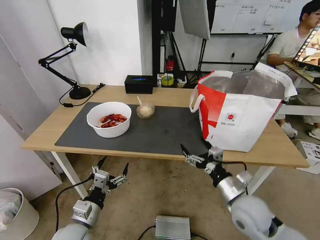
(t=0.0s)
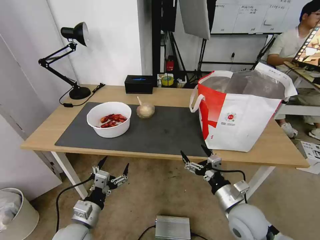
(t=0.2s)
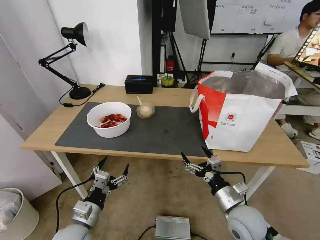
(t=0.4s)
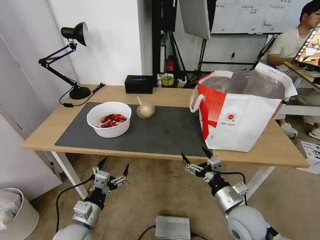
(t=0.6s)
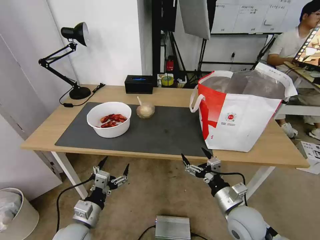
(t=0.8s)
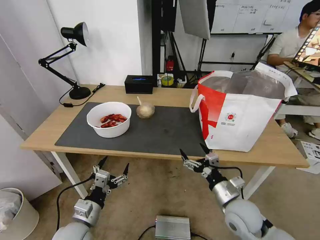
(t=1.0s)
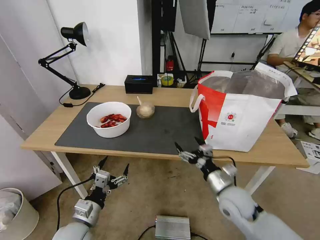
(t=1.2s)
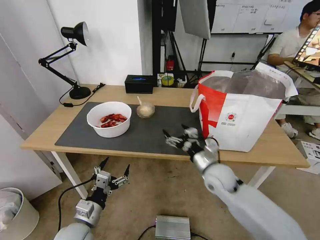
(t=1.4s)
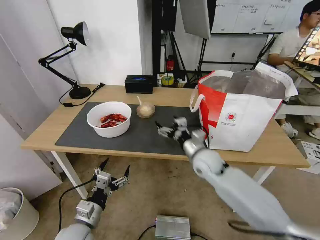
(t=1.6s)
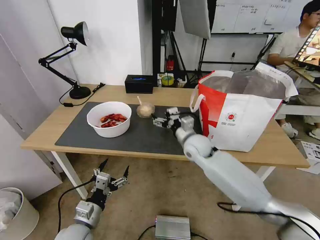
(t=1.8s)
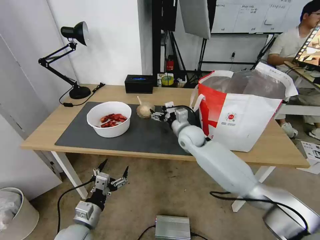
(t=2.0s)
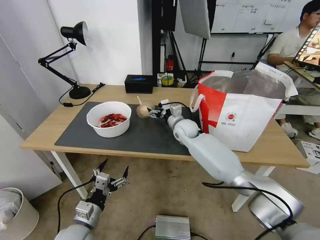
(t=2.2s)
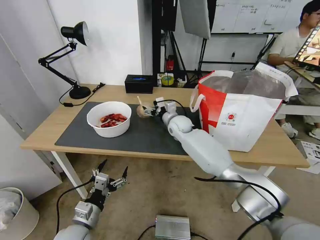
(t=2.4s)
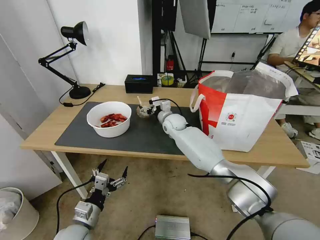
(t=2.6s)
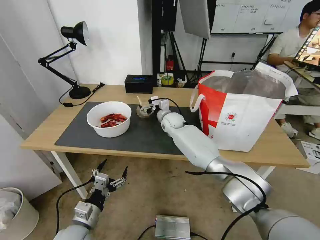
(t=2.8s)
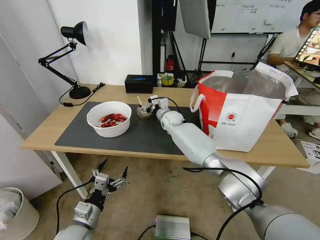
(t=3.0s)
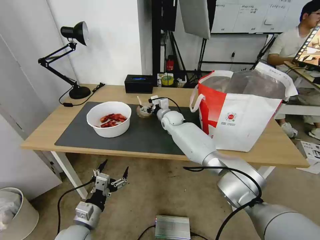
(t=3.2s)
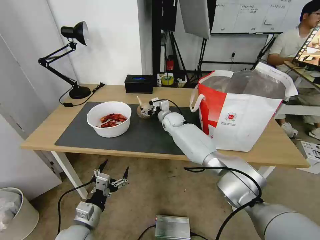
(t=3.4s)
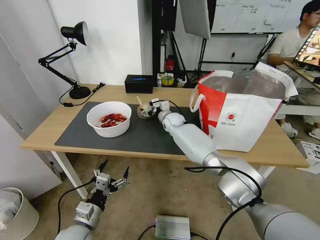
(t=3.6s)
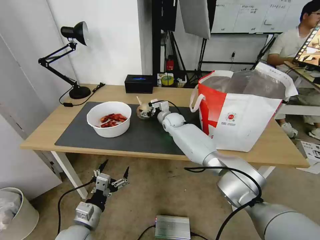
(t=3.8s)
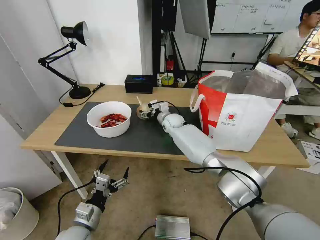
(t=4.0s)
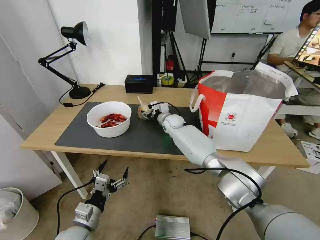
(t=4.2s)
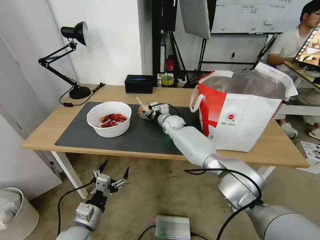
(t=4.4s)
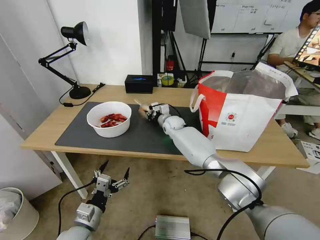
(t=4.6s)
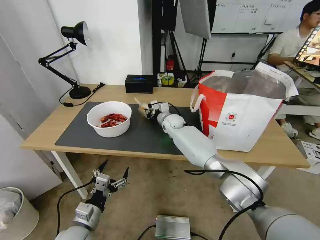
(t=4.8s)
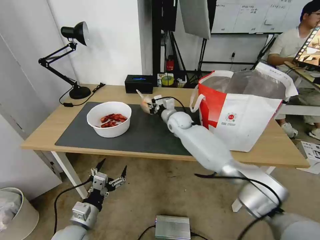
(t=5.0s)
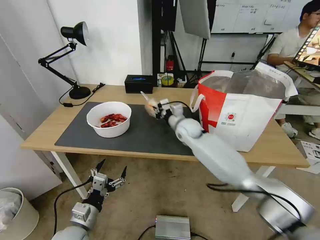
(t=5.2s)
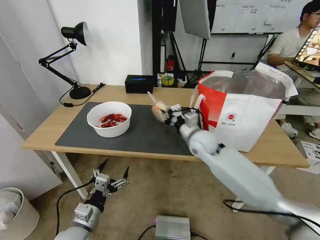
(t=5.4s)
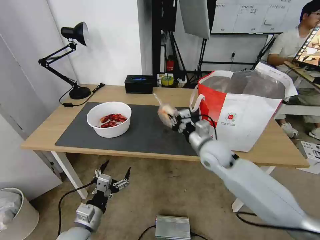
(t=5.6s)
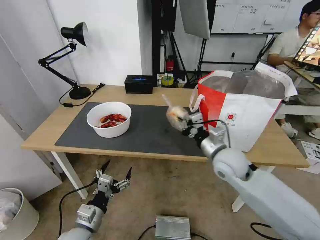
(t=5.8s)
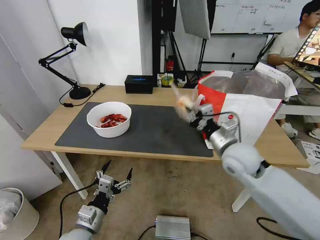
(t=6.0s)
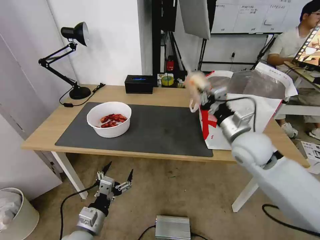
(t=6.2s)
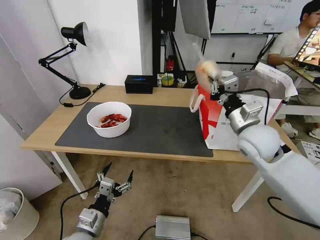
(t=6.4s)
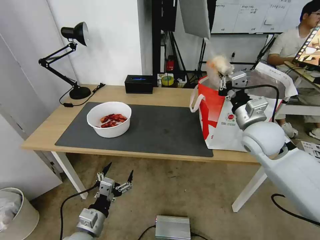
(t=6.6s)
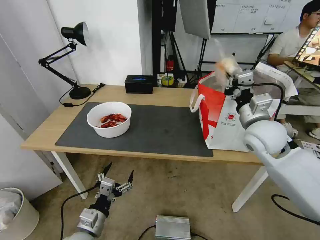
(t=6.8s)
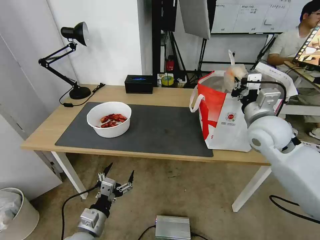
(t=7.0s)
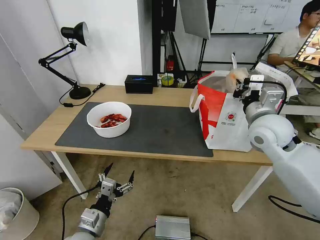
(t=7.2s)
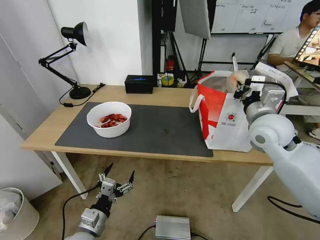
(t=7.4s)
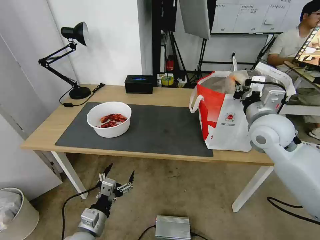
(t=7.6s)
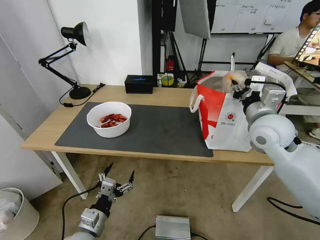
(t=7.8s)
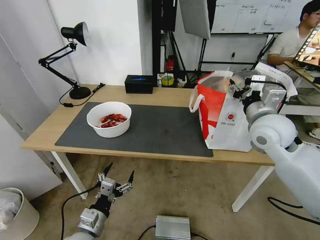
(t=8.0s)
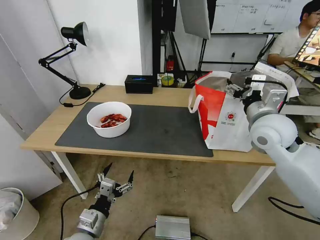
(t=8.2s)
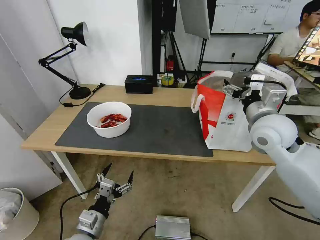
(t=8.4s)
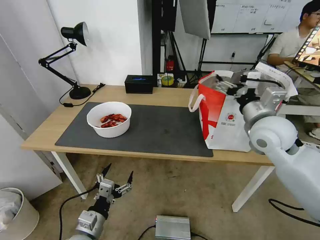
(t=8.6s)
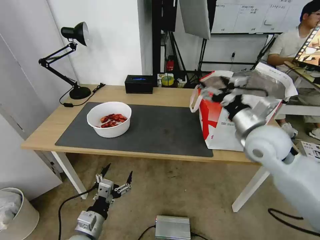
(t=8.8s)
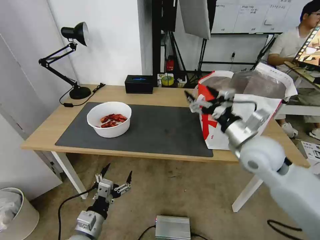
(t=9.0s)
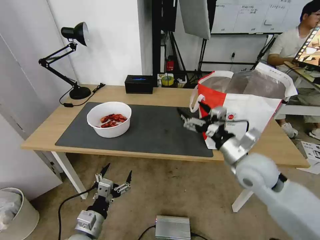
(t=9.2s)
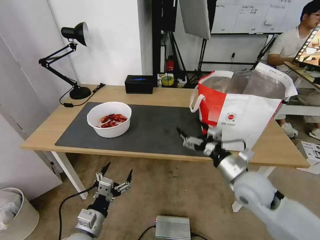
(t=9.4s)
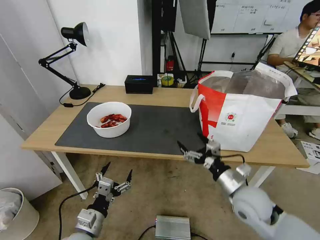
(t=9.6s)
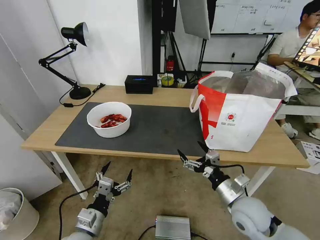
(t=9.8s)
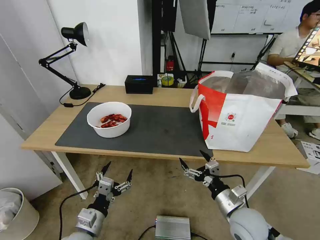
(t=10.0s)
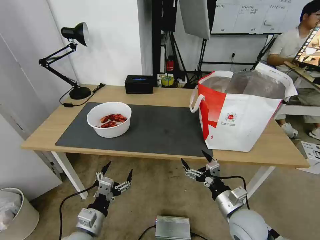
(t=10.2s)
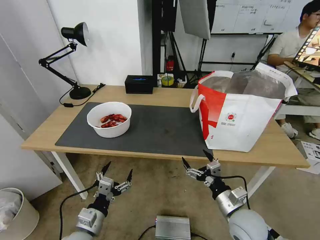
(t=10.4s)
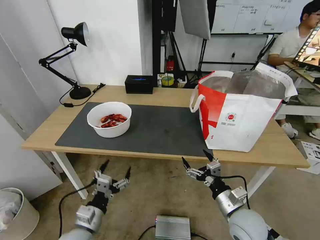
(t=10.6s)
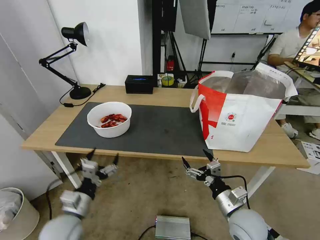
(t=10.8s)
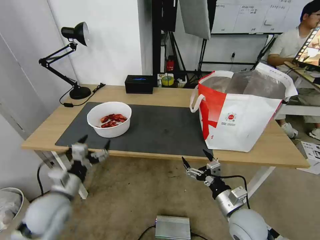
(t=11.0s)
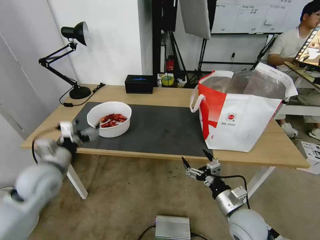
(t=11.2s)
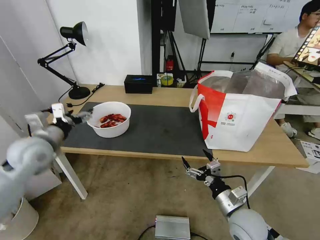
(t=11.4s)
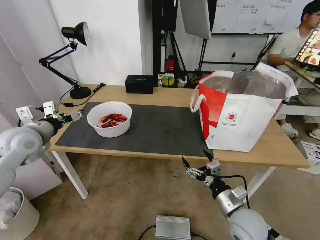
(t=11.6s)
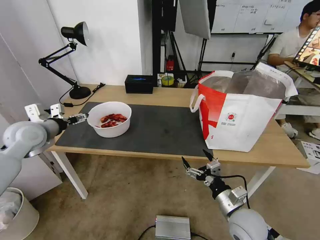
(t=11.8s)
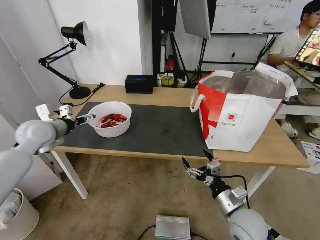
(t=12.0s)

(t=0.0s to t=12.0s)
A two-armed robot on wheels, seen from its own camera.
Task of the whole recording: Pick up the trash from the table and place it into the takeout bag.
t=0.0s - t=1.6s: The right gripper travels forward and to the left by approximately 15 cm.
t=1.6s - t=3.0s: The right gripper shifts approximately 25 cm forward and to the left.
t=3.0s - t=4.4s: The right gripper closes.
t=4.4s - t=6.0s: The right gripper is displaced backward, to the right and upward by some 35 cm, and closes.
t=6.0s - t=7.6s: The right gripper shifts roughly 10 cm upward and to the right.
t=7.6s - t=9.0s: The right gripper moves backward, approximately 5 cm, and opens up.
t=9.0s - t=10.4s: The right gripper shifts approximately 20 cm downward and backward.
t=10.4s - t=12.0s: The left gripper moves forward, upward and to the left, roughly 35 cm.

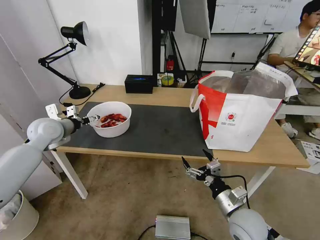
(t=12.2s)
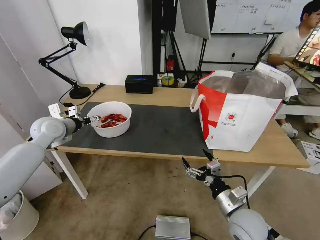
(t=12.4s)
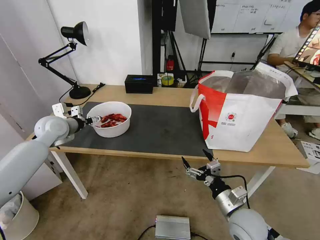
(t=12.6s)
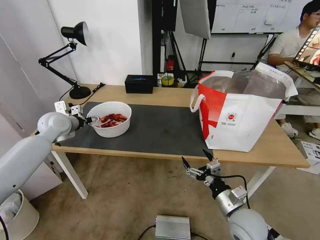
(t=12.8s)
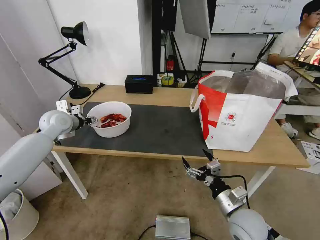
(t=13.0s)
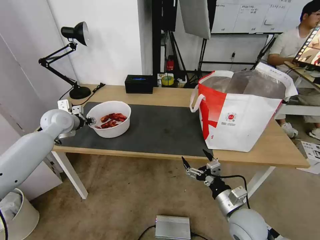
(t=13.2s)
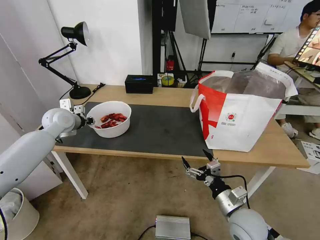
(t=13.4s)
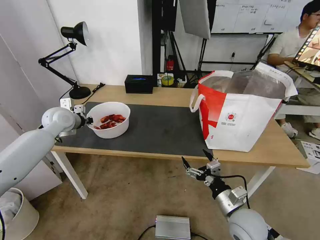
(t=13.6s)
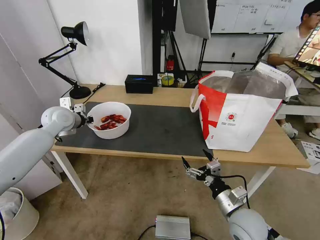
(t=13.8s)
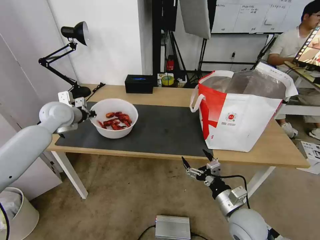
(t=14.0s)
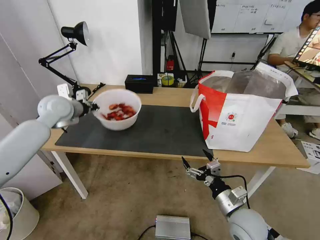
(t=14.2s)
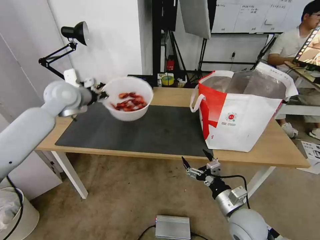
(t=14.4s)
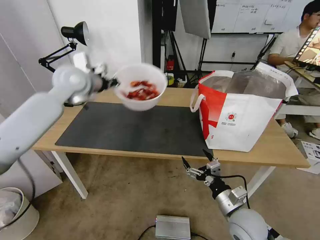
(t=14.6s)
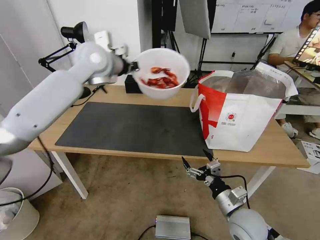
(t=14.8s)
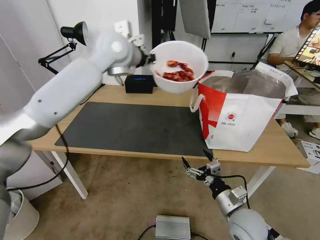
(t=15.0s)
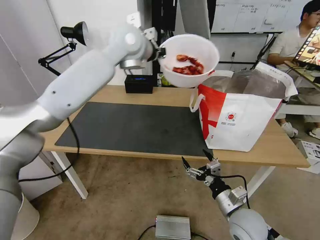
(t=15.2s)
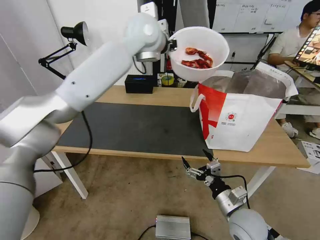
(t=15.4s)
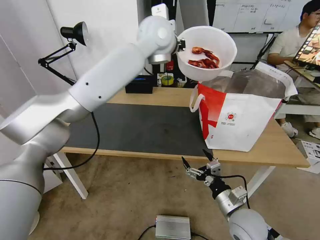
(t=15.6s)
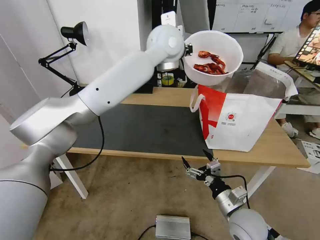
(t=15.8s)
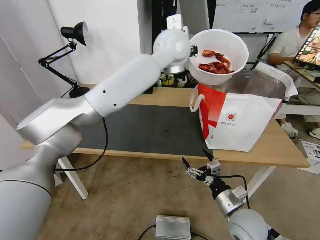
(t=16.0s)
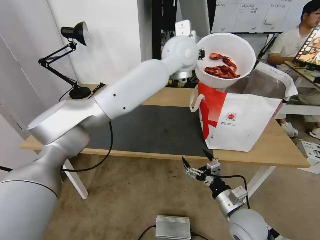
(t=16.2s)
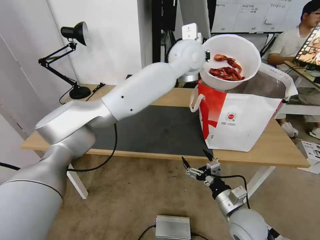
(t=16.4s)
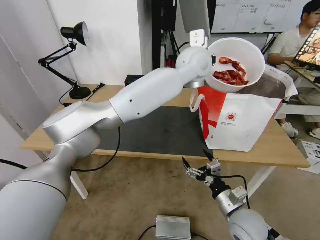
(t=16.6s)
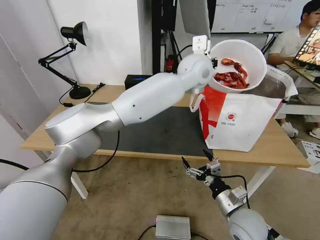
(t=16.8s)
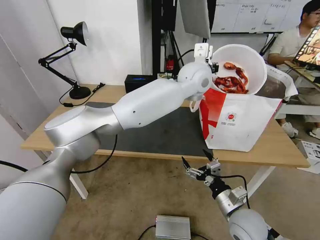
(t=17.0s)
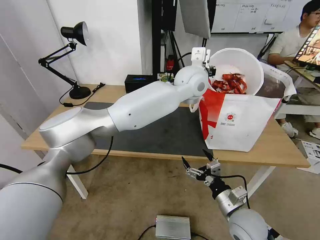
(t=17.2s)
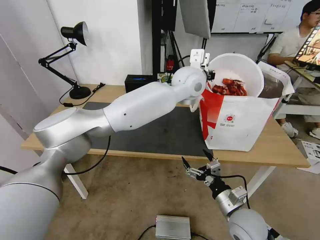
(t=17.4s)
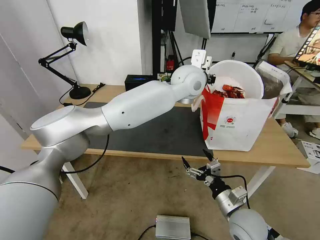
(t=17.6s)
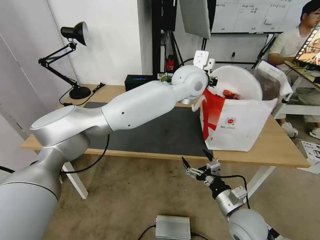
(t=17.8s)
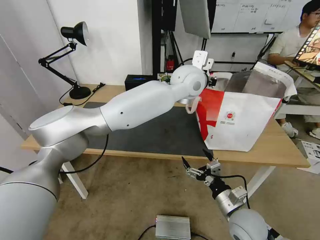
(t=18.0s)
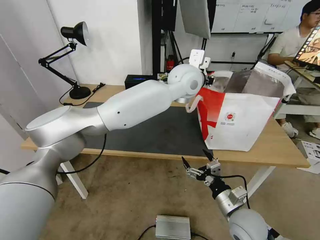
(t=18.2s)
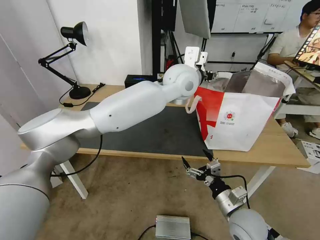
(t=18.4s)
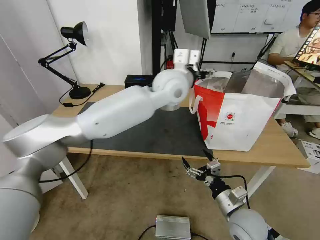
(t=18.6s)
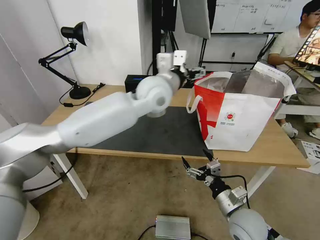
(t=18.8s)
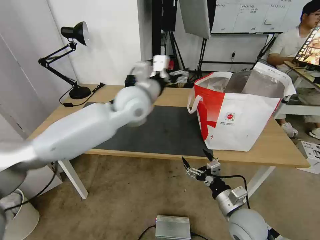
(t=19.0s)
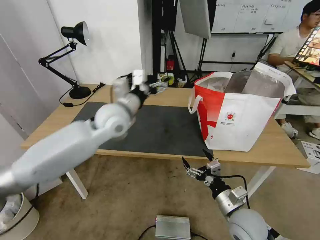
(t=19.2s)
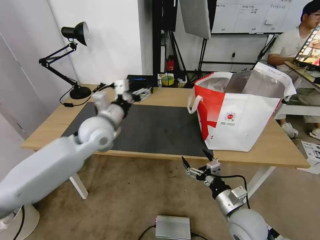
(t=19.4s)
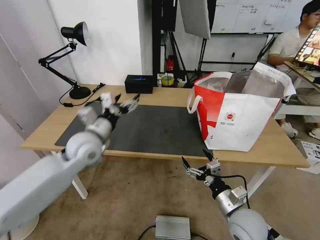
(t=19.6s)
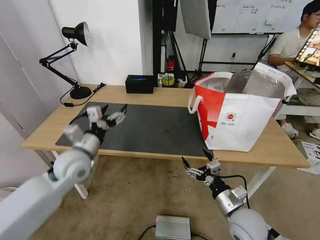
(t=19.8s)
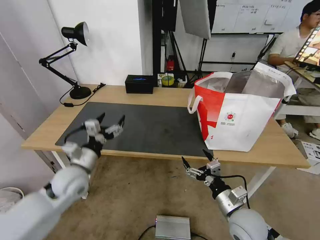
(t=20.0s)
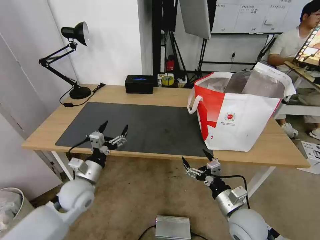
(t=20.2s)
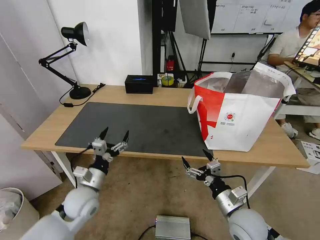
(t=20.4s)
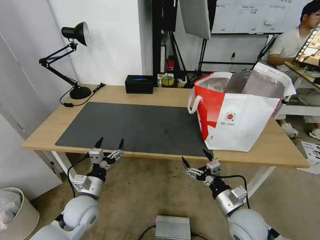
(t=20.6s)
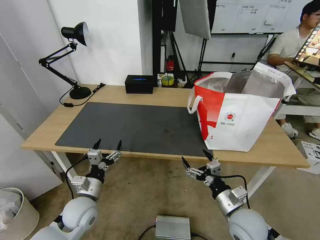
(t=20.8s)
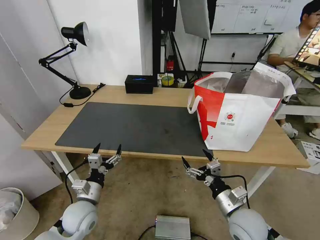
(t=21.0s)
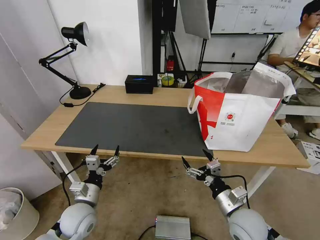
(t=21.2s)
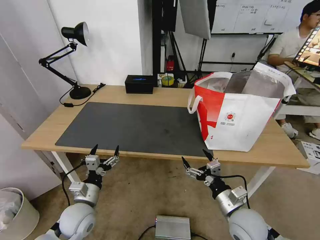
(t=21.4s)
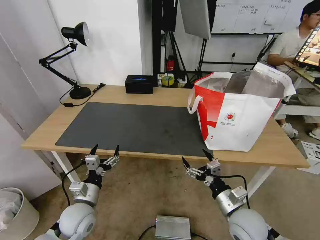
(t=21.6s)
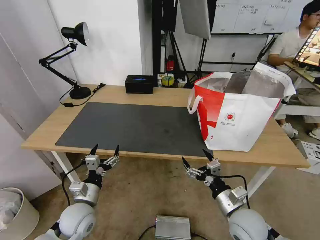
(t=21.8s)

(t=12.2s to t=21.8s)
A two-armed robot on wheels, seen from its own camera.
Task of the whole recording: Pick up the trash from the table and place it into the takeout bag.
t=12.2s - t=13.8s: The left gripper shifts by about 5 cm, and closes.
t=13.8s - t=15.4s: The left gripper is displaced to the right and upward by roughly 40 cm.
t=15.4s - t=17.0s: The left gripper goes roughly 20 cm to the right and downward.
t=17.0s - t=18.6s: The left gripper heads to the left, covering about 5 cm, and opens its fingers.
t=18.6s - t=20.2s: The left gripper moves to the left, downward and backward, some 40 cm.
t=20.2s - t=21.8s: The left gripper heads backward and downward, covering roughly 5 cm.
